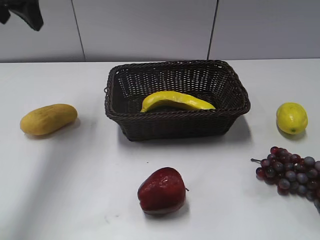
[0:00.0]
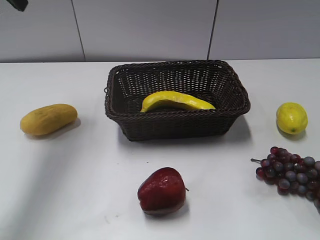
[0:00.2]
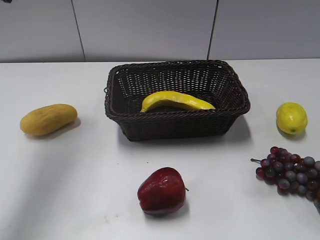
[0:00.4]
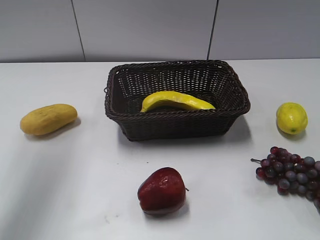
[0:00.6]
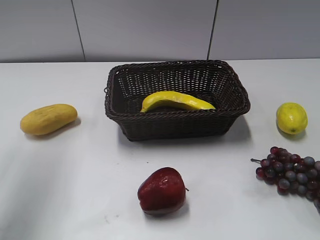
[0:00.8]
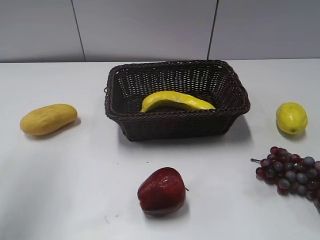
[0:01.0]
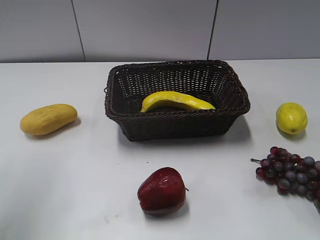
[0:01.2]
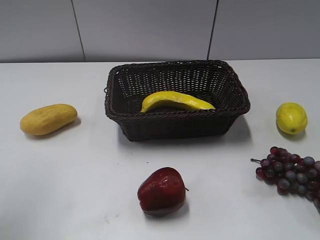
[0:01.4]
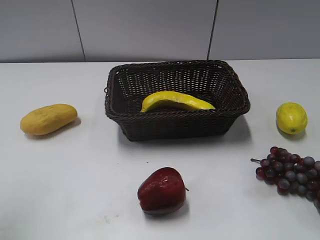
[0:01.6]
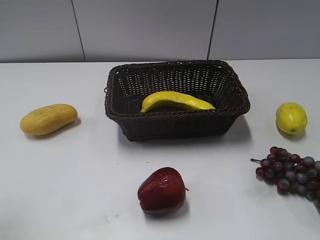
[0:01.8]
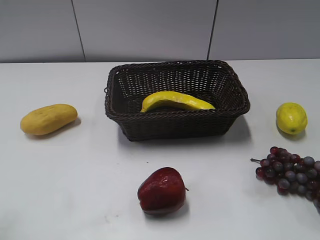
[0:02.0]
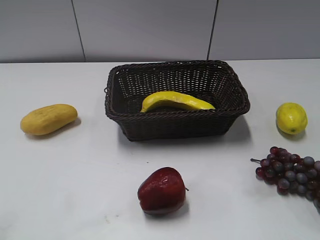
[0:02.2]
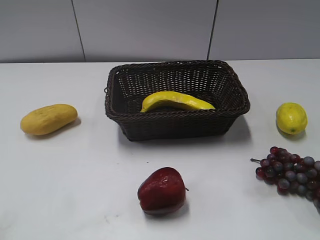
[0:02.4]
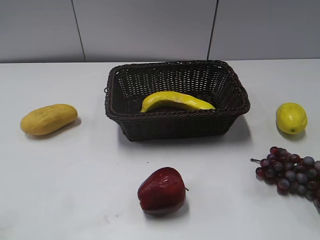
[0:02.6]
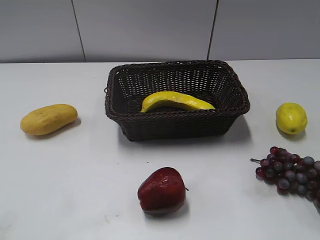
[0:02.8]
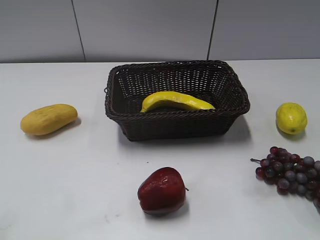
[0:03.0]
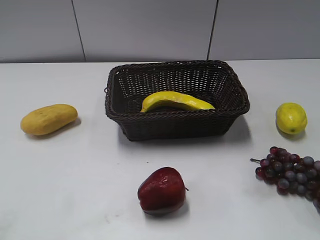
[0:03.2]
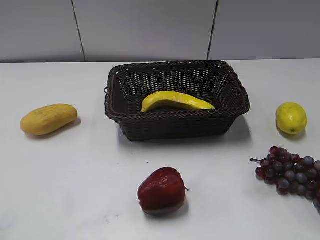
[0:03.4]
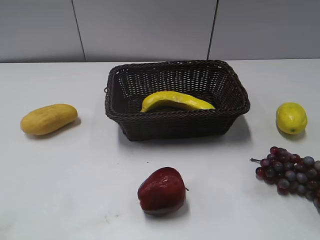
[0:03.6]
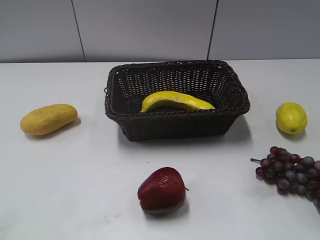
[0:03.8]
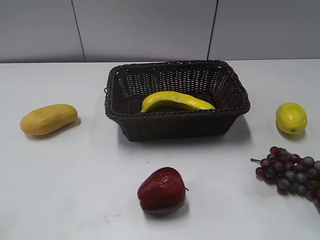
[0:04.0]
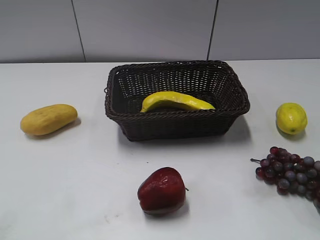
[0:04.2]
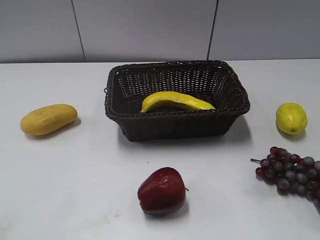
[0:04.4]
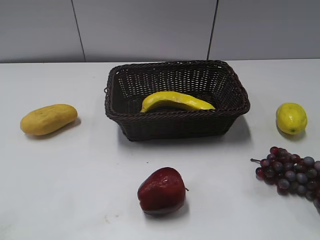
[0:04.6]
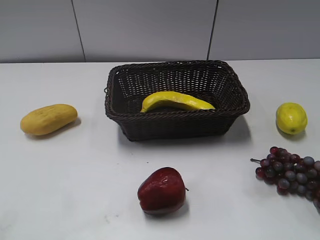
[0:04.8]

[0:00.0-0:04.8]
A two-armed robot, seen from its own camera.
0:00.0 to 0:01.6: The left gripper moves backward, some 25 cm.
